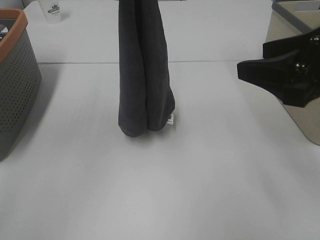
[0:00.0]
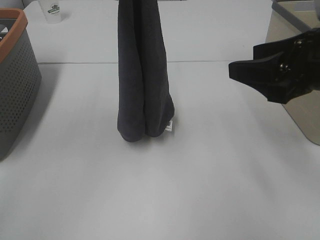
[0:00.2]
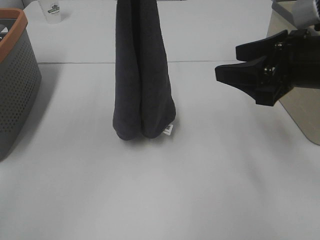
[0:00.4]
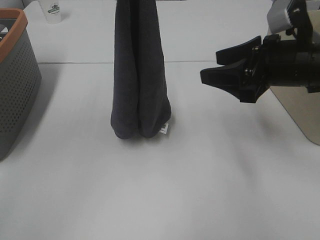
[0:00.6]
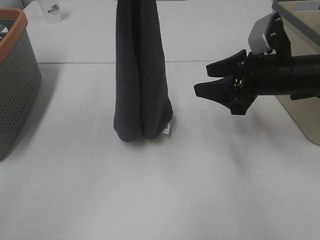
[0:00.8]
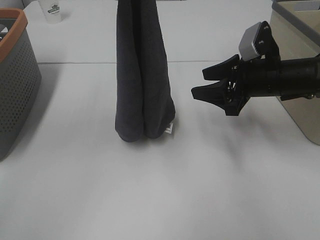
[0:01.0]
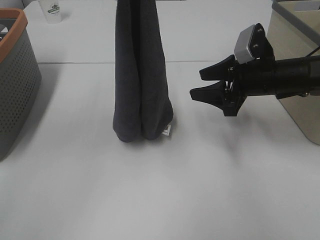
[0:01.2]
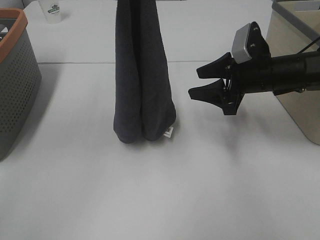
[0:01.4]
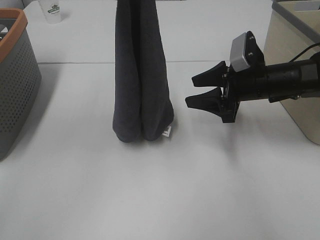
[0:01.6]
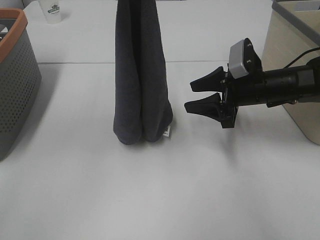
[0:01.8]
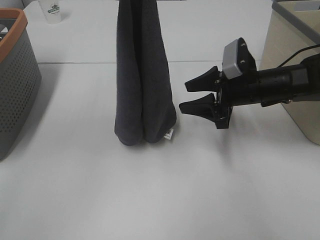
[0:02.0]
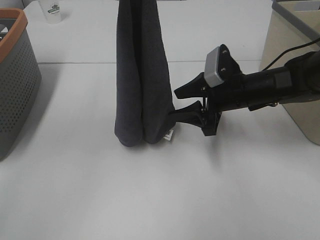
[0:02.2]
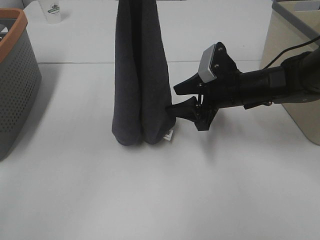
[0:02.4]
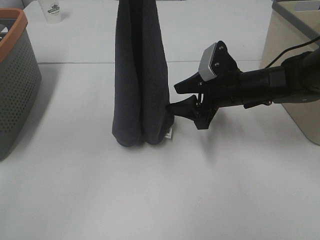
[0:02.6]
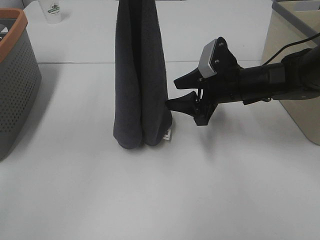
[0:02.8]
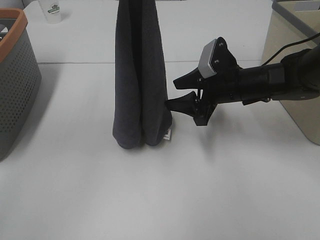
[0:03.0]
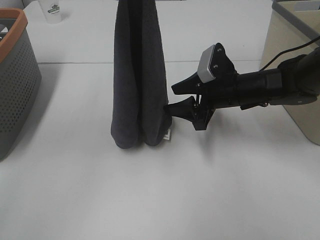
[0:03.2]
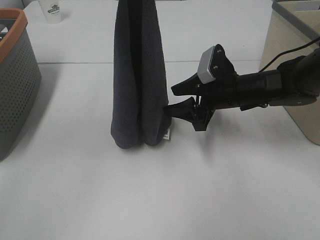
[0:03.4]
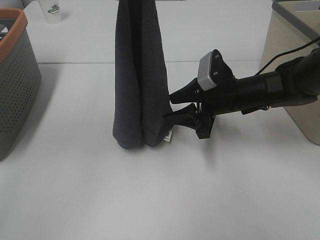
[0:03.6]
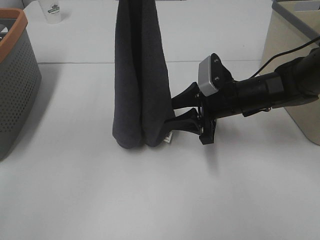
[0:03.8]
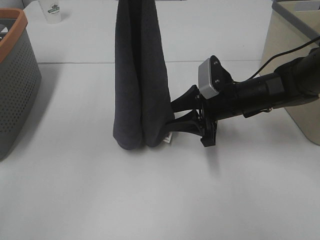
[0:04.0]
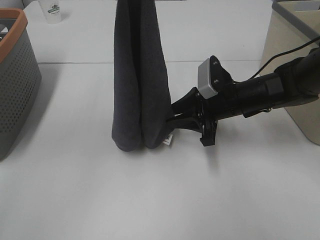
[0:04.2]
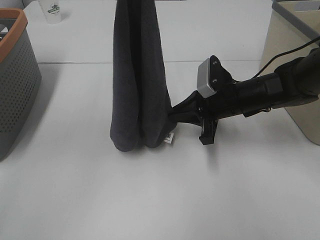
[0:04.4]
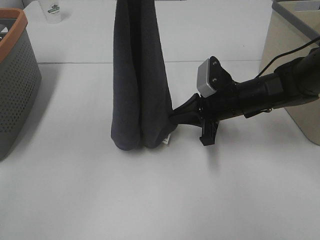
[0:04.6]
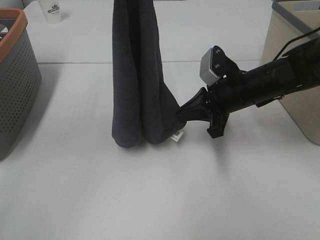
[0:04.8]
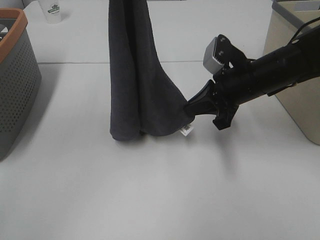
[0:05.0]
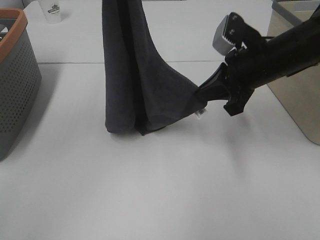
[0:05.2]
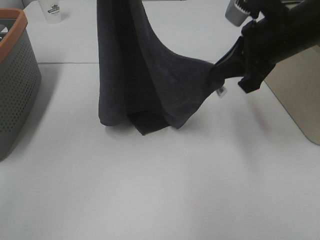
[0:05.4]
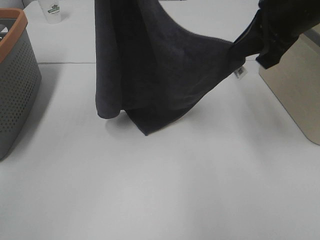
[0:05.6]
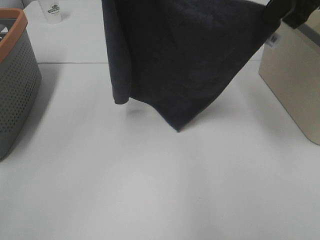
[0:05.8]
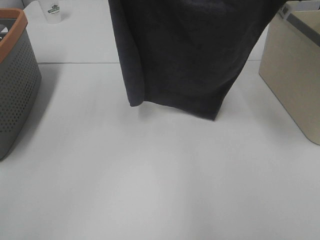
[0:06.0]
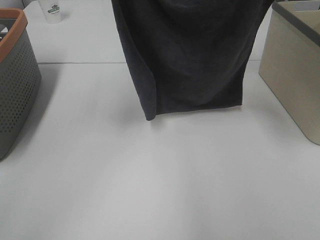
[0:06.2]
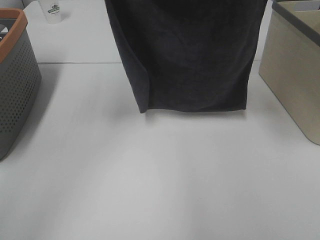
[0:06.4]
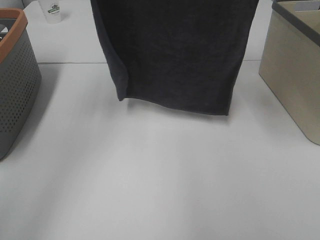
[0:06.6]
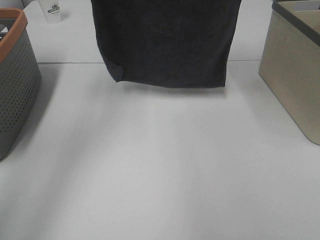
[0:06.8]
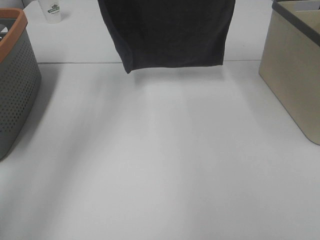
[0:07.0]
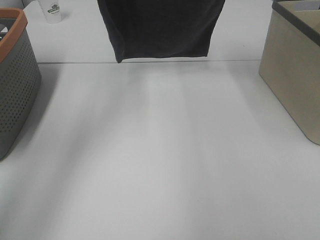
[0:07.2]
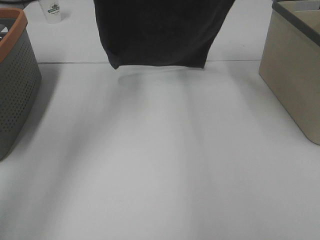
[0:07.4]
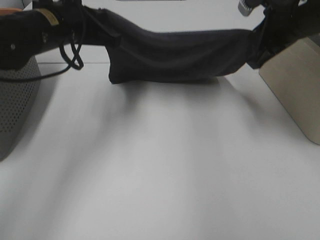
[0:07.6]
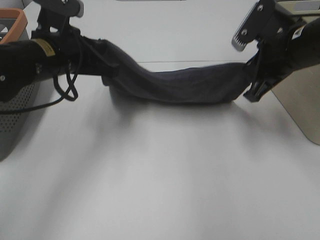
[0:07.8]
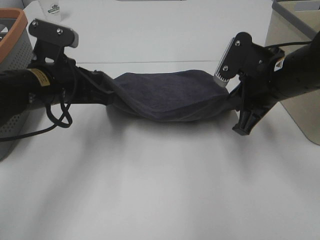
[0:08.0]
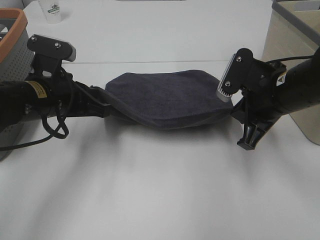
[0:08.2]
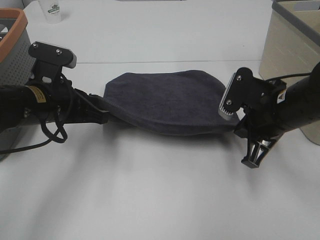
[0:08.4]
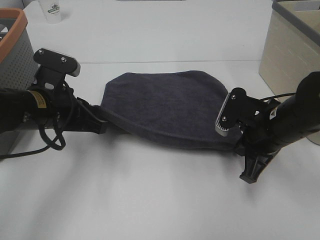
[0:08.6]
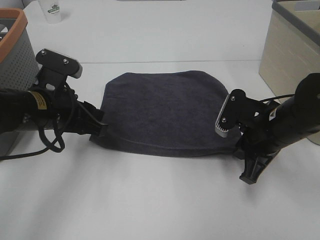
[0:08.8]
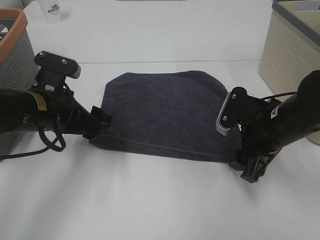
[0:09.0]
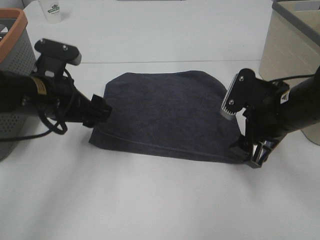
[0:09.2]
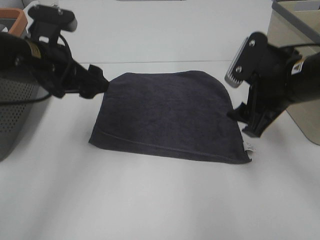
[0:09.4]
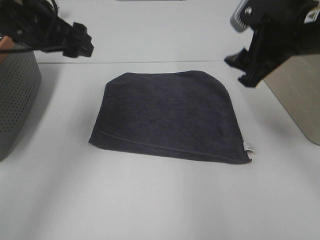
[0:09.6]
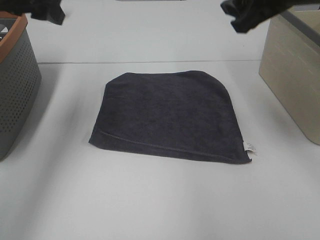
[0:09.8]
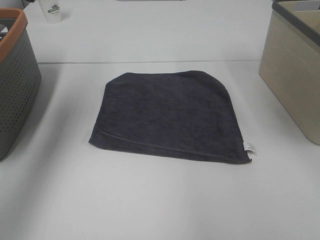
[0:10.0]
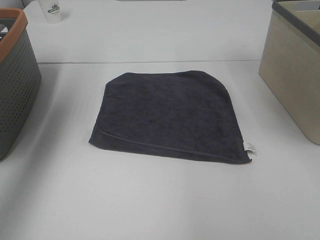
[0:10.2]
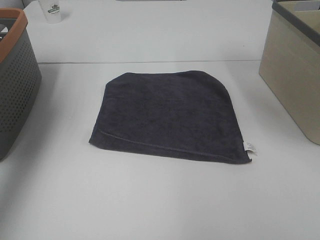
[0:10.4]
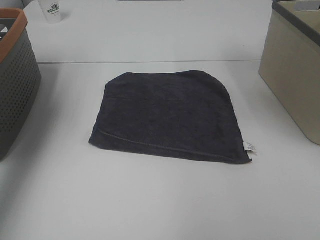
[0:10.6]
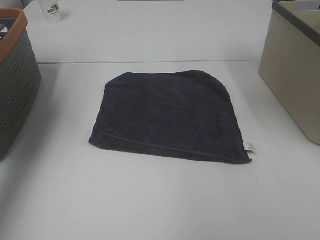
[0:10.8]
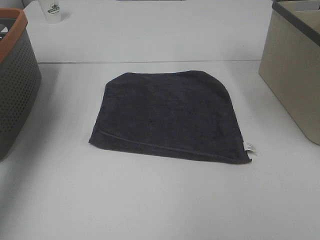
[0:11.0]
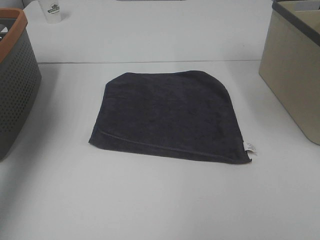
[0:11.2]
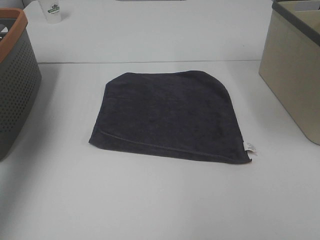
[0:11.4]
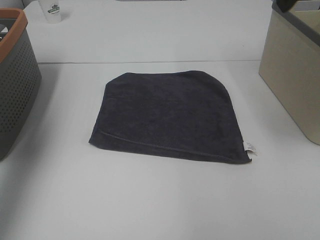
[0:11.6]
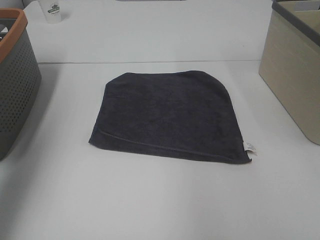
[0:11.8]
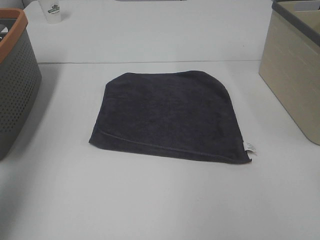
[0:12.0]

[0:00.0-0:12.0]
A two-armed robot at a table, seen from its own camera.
Task of the whole recording: Remove the towel and place it.
Step, 0:00.0 to 0:02.4: Right hand: grab a corner of the grey towel and straighten it.
Step, 0:02.6 to 0:04.6: Right hand: spread the grey towel flat on the table.
0:00.0 to 0:01.6: The right gripper is displaced forward and downward by some 20 cm.
0:01.6 to 0:03.0: The grippers move only a little.
0:03.0 to 0:04.4: The right gripper closes its fingers.
0:04.4 to 0:06.0: The right gripper shifts roughly 30 cm upward.
0:06.0 to 0:07.6: Both grippers travel together downward, about 15 cm.
0:07.6 to 0:09.0: The two grippers go some 15 cm downward and backward. The right gripper opens. The left gripper opens up.
0:09.0 to 0:10.4: The right gripper shifts about 25 cm upward. The left gripper moves upward and to the left, roughly 30 cm.
0:10.4 to 0:12.0: The left gripper heads backward, covering about 20 cm.

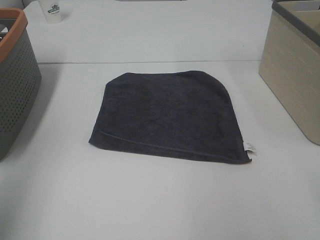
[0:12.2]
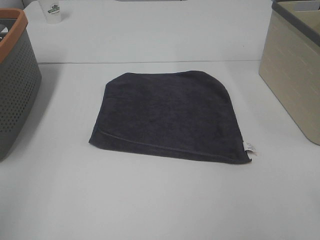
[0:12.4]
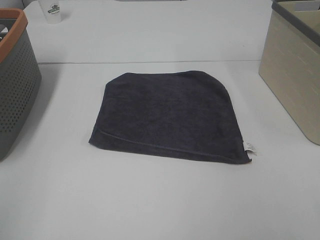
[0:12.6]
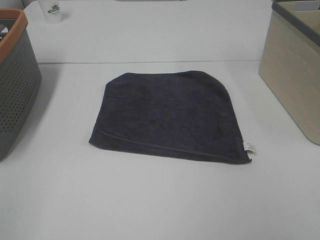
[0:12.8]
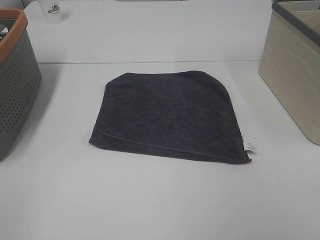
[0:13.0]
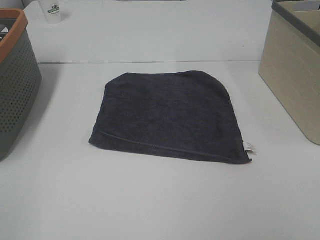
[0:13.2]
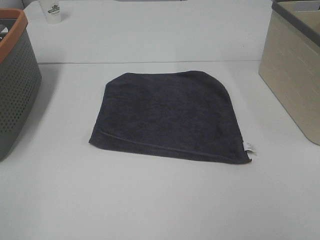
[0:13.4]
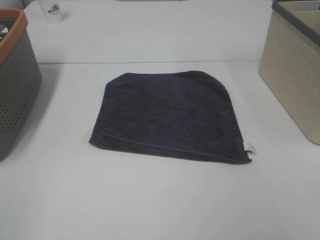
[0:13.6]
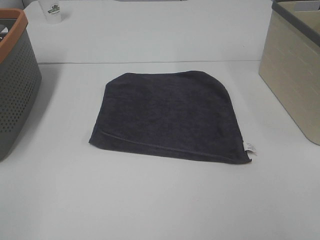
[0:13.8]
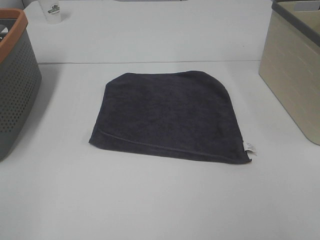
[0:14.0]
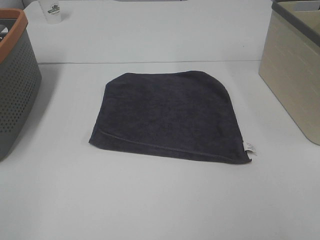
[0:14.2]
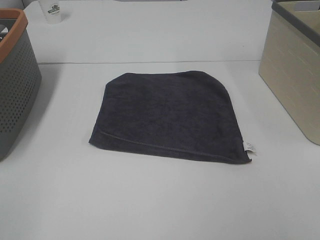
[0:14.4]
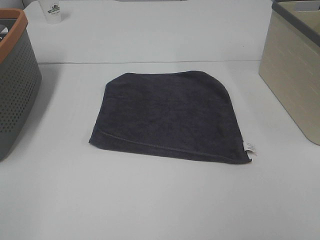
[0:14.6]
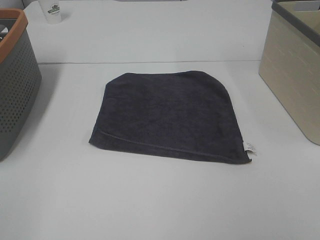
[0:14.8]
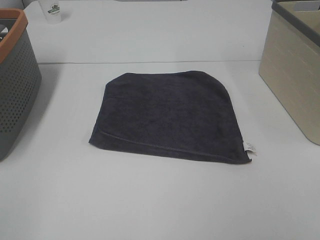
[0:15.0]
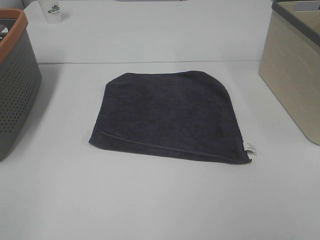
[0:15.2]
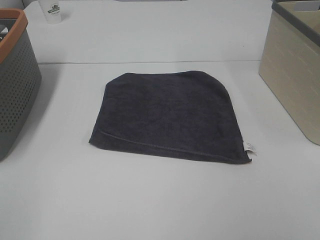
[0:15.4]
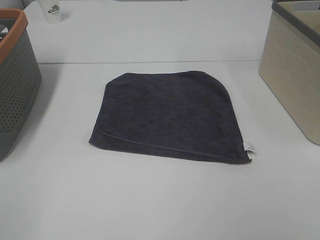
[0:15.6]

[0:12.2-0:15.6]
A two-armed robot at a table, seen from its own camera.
Task of the whole recording: Remove the towel and place it.
0:12.2 to 0:13.8: The left gripper heads backward and downward, covering some 15 cm.

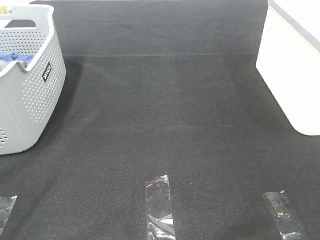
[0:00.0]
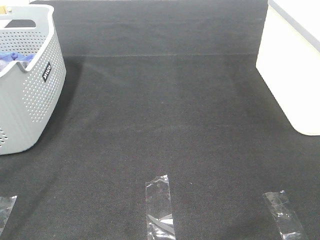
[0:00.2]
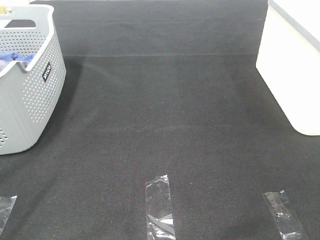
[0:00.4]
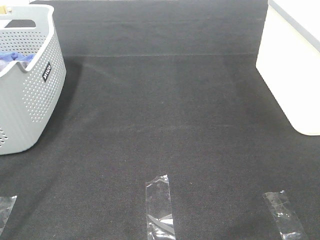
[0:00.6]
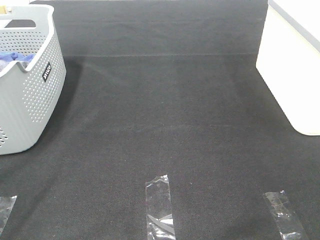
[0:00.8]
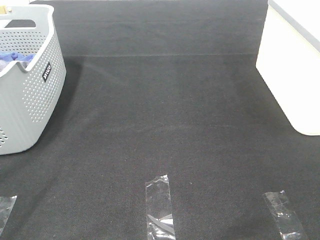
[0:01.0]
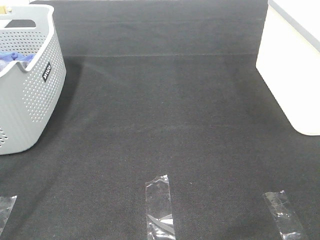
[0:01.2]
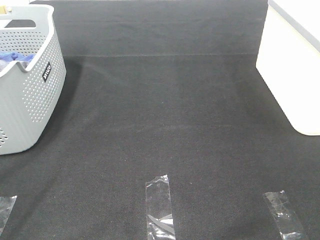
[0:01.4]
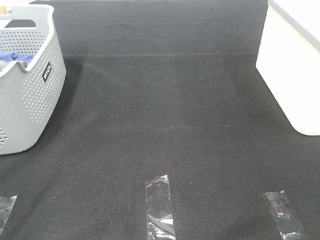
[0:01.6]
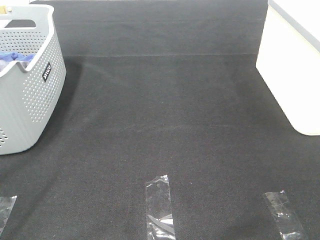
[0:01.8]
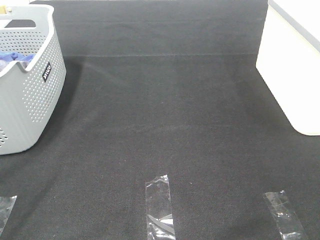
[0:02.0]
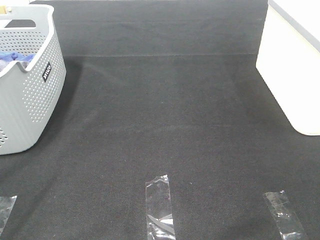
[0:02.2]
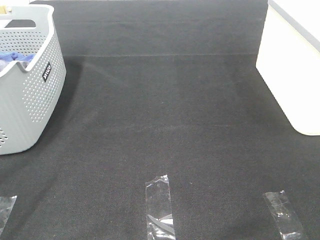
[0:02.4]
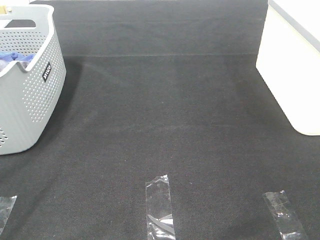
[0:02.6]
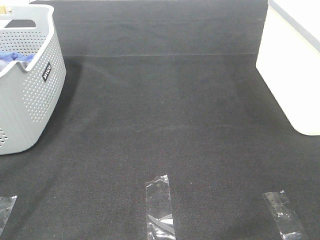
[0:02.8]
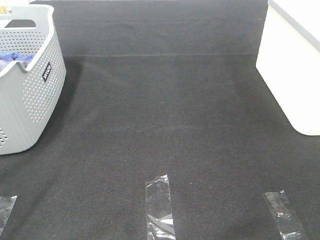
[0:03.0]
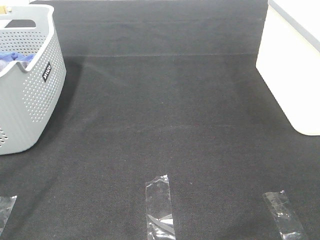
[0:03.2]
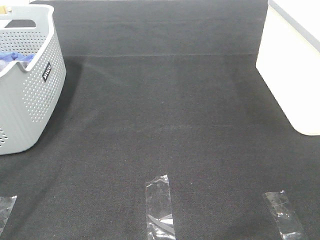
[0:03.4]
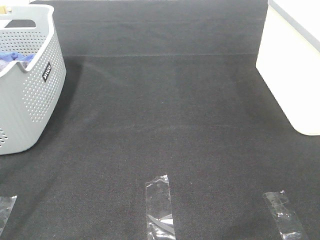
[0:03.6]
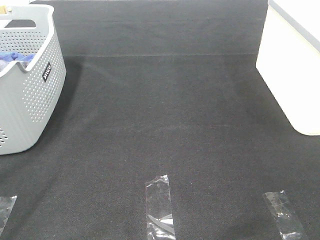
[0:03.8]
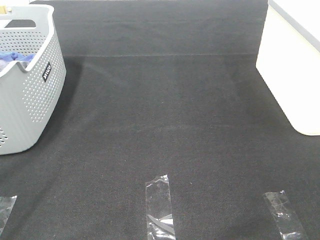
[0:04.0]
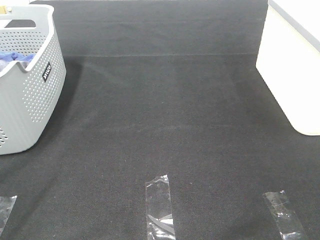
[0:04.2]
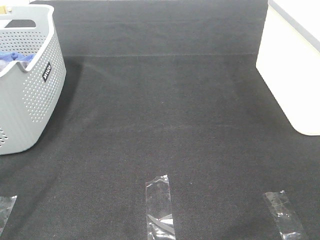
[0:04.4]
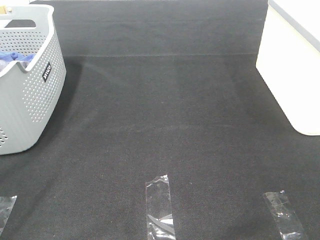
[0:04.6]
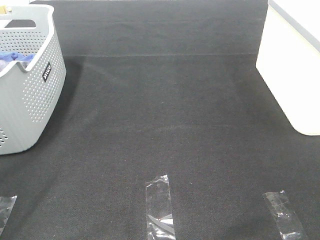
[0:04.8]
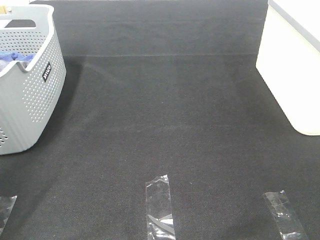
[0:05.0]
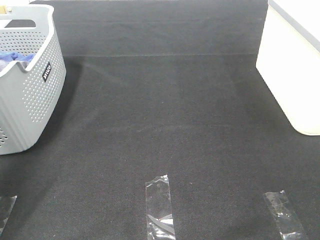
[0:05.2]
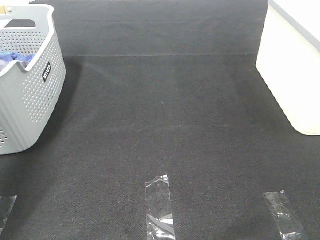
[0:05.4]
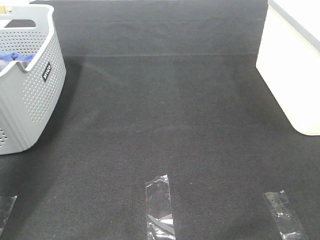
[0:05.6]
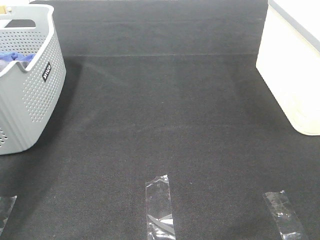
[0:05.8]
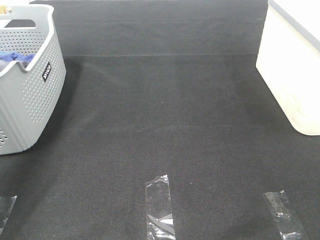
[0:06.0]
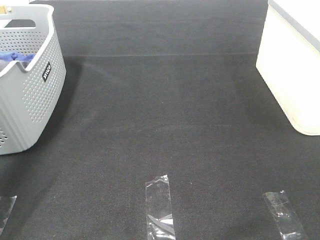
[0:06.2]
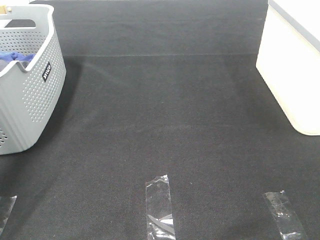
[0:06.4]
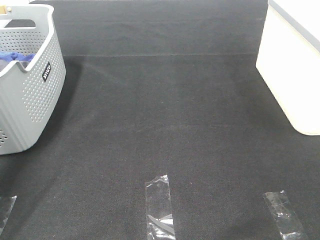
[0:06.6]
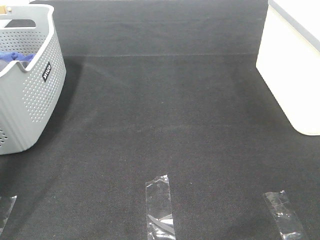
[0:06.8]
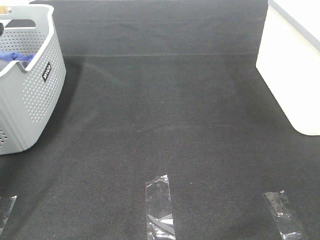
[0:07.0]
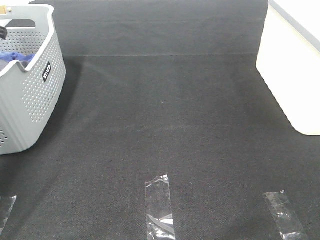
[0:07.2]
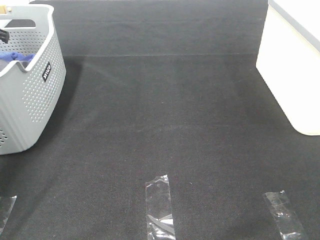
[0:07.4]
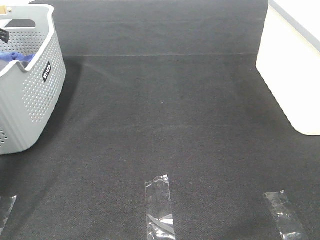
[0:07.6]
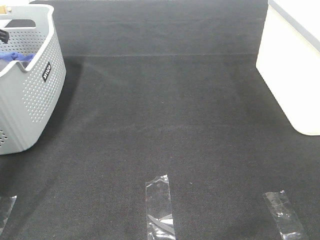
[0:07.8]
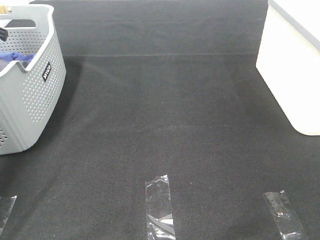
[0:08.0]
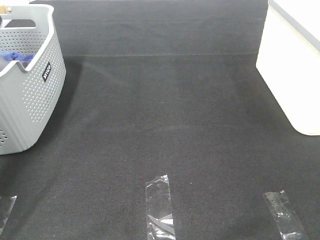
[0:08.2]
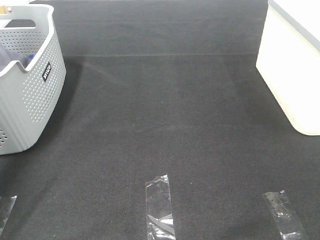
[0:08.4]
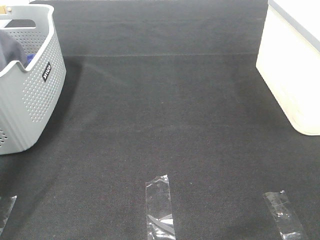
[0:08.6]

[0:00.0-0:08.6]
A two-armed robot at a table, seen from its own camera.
Task of the whole recording: Remove the towel and place it.
0:00.0 to 0:04.4: Neither gripper changes place.
0:04.4 to 0:05.8: The left gripper is displaced forward by some 35 cm.
0:05.8 to 0:07.2: The left gripper travels forward and downward by approximately 15 cm.
0:07.2 to 0:08.6: The left gripper moves upward and backward, roughly 15 cm, and closes.
